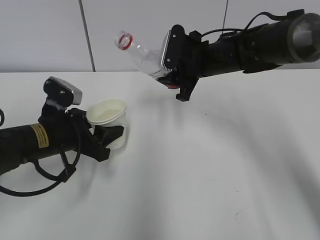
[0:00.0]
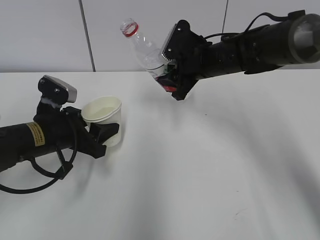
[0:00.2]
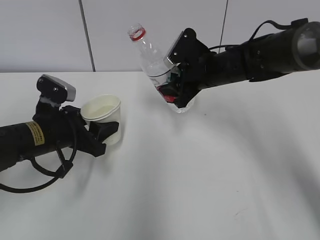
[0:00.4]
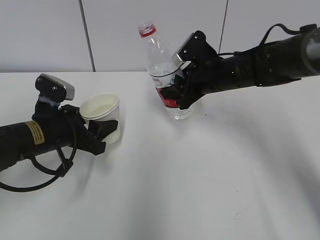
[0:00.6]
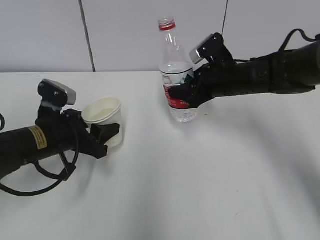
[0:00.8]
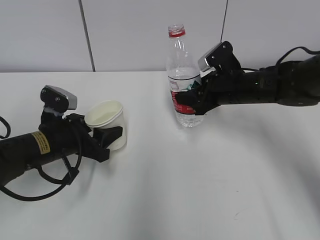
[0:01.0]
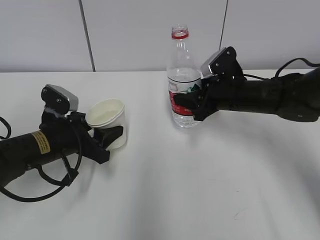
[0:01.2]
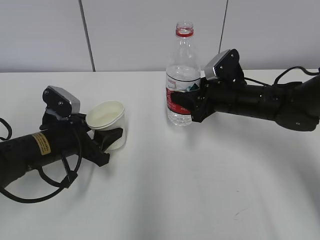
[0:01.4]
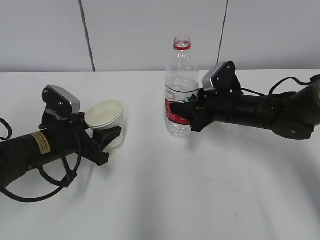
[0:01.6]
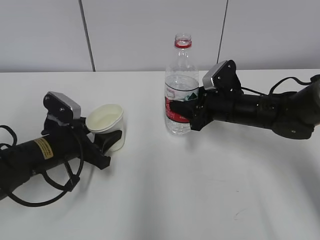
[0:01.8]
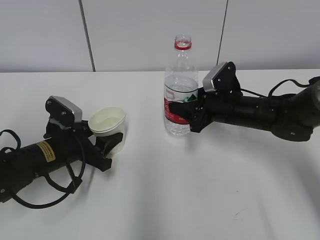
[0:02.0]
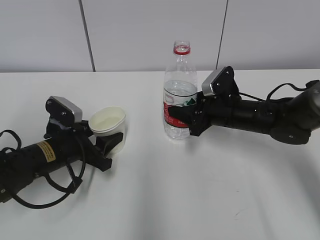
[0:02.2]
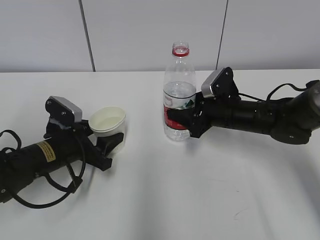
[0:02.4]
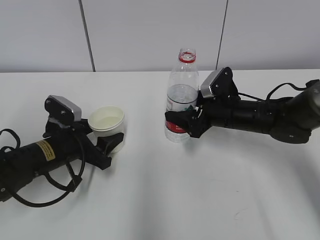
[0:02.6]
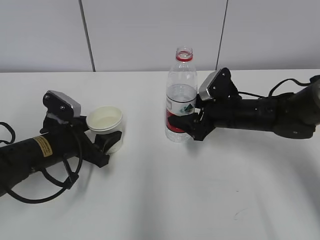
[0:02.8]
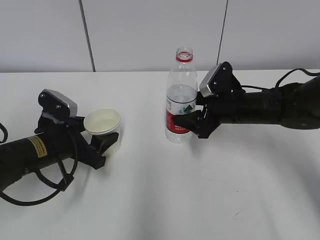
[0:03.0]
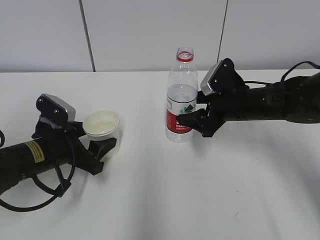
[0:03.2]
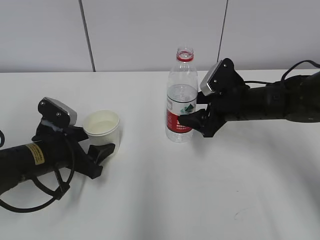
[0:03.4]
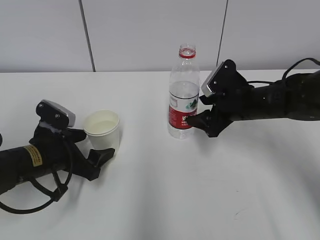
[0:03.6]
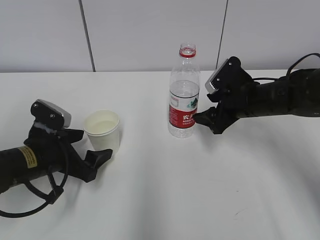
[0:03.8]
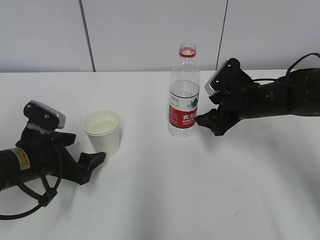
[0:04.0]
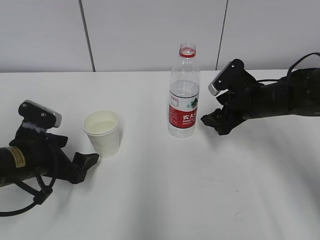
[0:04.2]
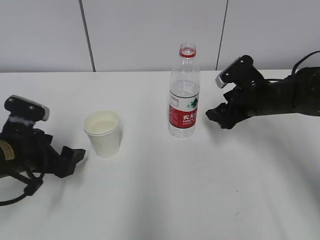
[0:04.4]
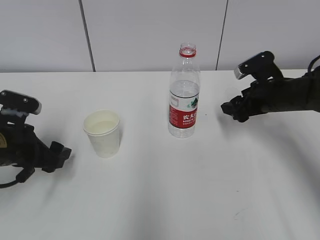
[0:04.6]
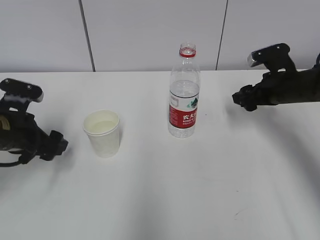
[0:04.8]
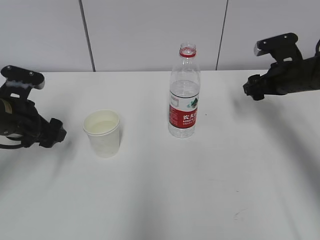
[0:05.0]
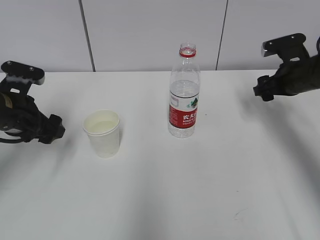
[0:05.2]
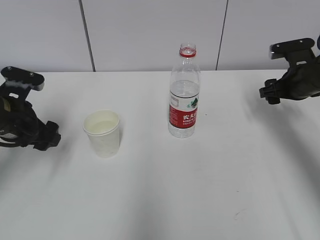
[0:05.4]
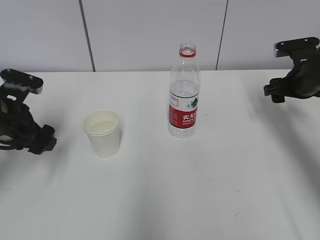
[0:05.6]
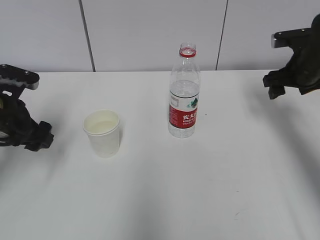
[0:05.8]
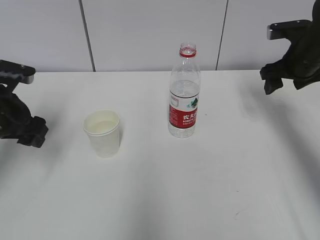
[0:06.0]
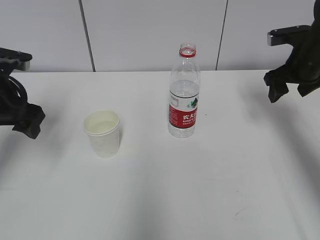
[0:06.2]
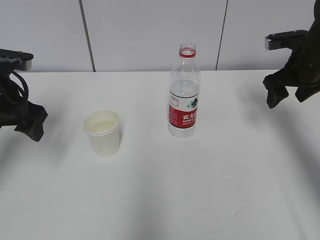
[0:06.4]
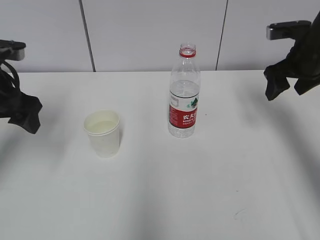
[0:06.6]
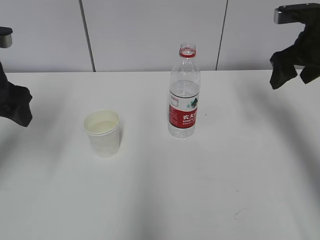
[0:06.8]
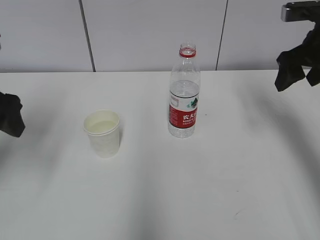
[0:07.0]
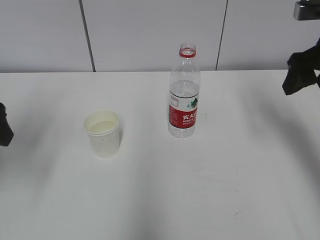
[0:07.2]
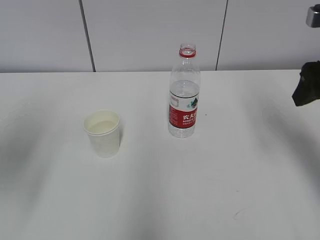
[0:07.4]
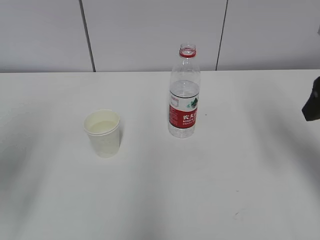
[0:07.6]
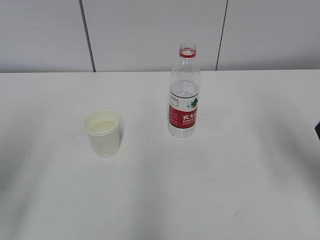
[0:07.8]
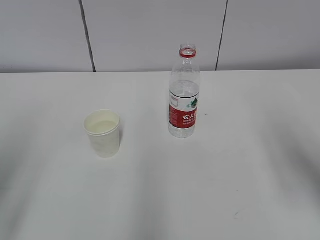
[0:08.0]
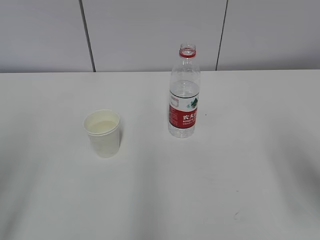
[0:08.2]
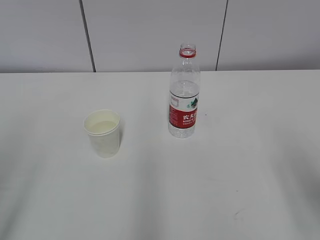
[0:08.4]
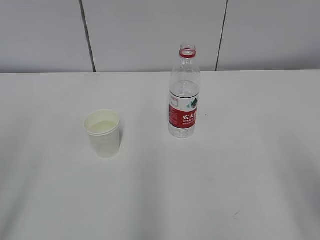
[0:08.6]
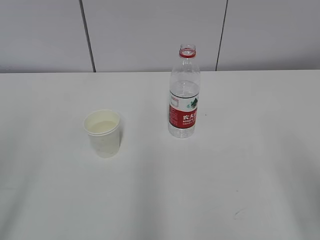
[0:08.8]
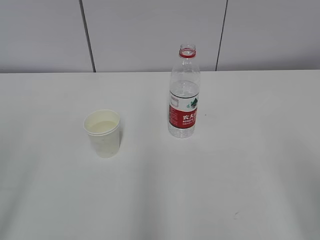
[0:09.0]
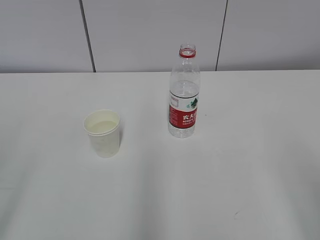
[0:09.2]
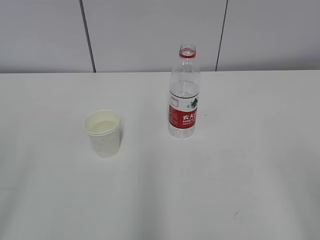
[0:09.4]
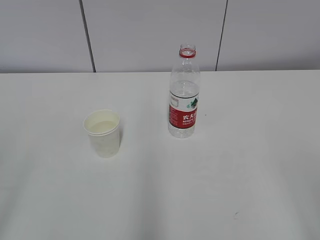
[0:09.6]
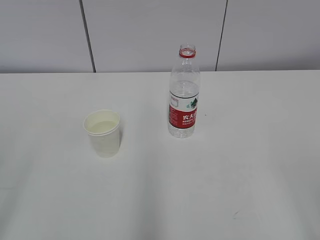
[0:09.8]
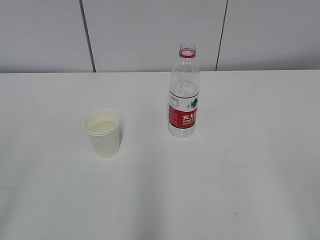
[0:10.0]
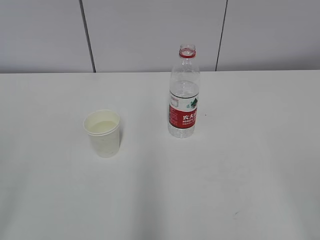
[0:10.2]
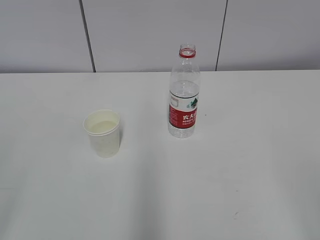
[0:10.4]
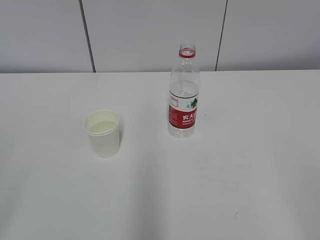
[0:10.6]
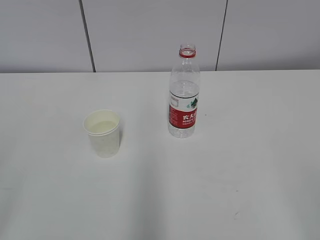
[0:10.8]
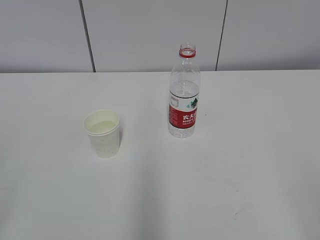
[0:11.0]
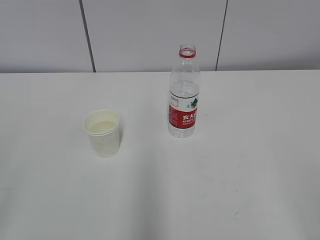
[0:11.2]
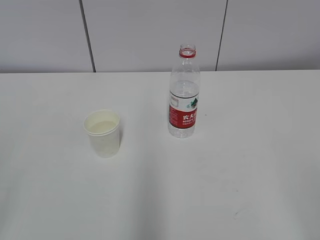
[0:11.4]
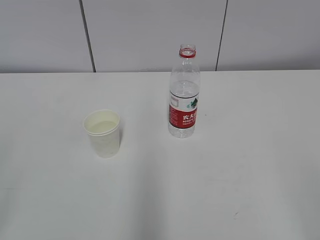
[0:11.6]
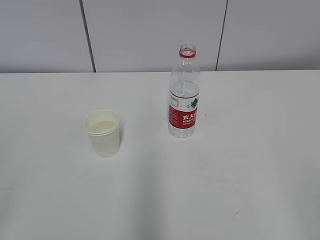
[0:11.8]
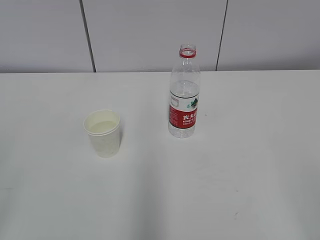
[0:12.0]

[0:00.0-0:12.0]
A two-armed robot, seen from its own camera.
0:00.0 to 0:01.6: The right gripper goes approximately 10 cm downward and to the right.
0:01.6 to 0:03.0: The right gripper opens its fingers.
0:03.0 to 0:04.4: The left gripper moves some 5 cm, and opens.
0:04.4 to 0:06.0: The right gripper shifts approximately 10 cm to the right and upward, while the left gripper travels upward by some 10 cm.
0:06.0 to 0:07.6: The grippers both shift backward and upward by approximately 15 cm.
0:07.6 to 0:09.0: The right gripper goes some 20 cm backward.

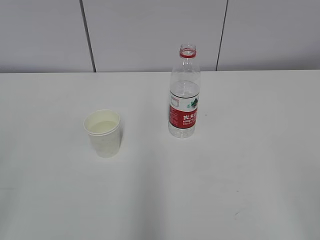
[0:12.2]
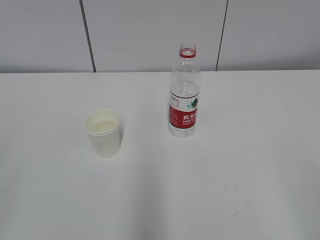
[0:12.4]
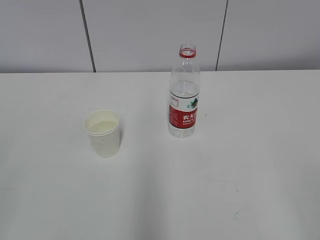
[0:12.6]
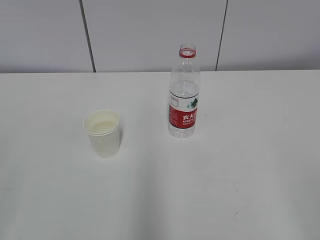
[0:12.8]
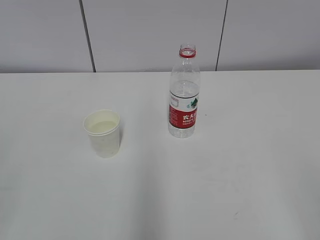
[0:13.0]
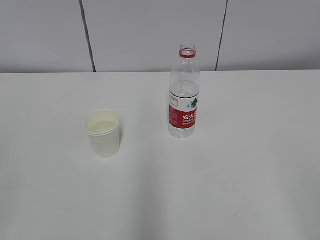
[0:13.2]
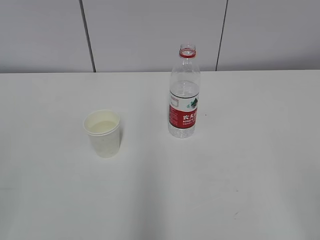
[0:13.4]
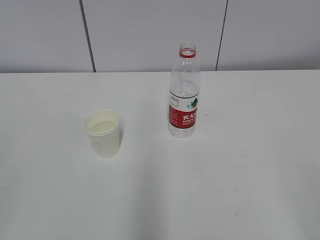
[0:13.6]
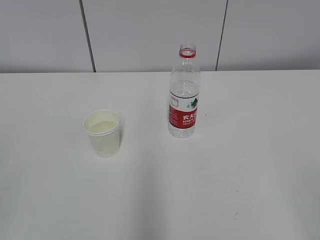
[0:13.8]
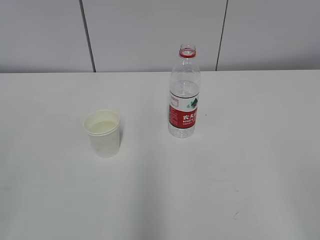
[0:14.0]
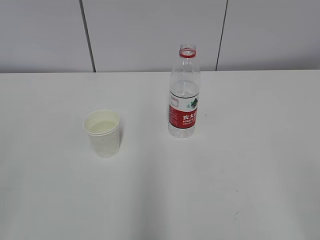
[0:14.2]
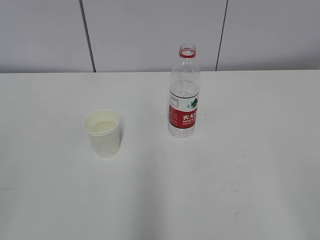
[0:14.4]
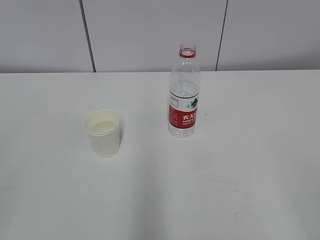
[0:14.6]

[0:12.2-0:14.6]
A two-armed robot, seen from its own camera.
0:13.4 to 0:14.6: Both grippers stay put.

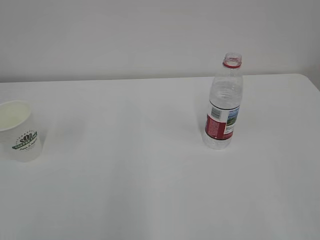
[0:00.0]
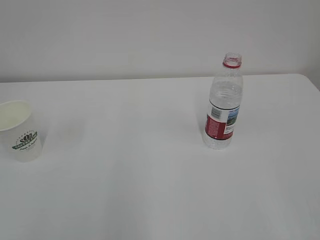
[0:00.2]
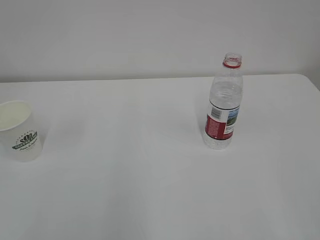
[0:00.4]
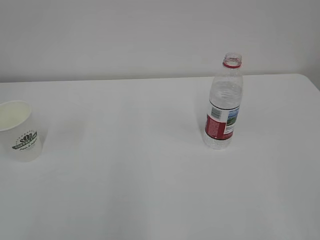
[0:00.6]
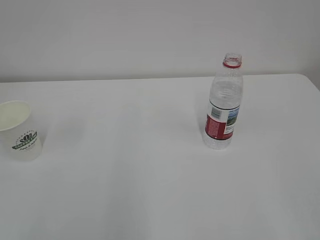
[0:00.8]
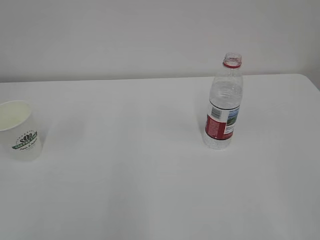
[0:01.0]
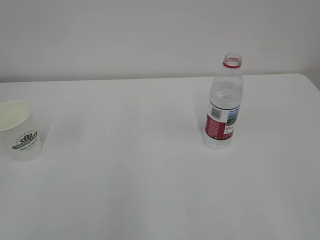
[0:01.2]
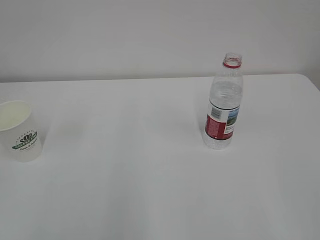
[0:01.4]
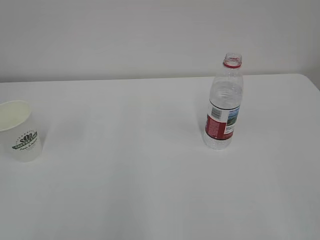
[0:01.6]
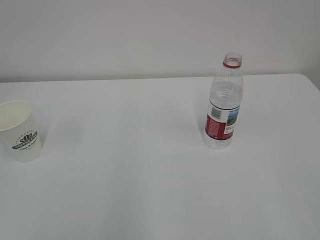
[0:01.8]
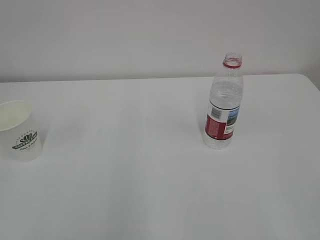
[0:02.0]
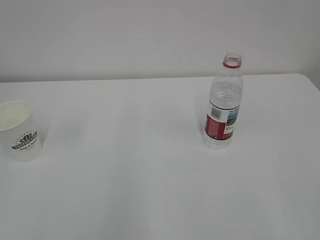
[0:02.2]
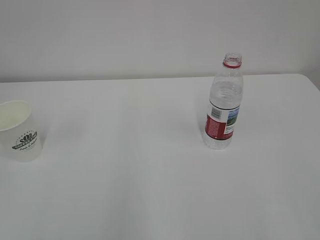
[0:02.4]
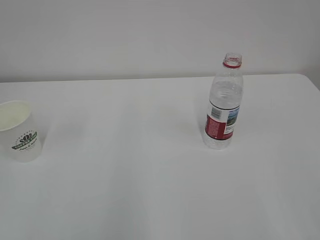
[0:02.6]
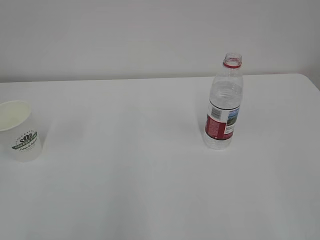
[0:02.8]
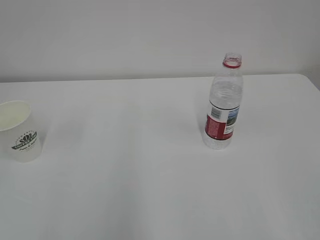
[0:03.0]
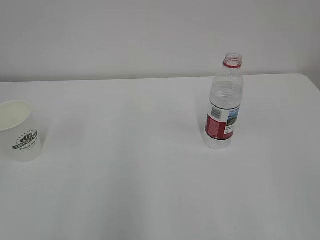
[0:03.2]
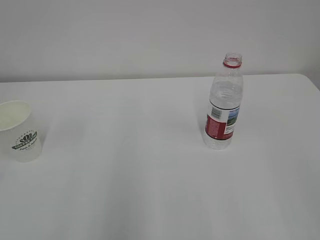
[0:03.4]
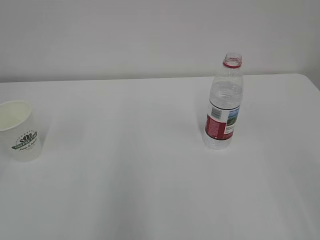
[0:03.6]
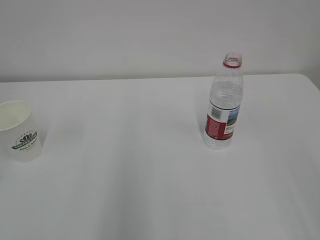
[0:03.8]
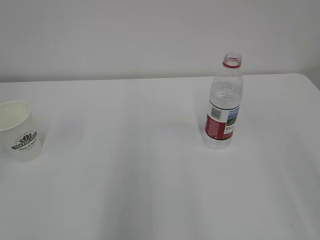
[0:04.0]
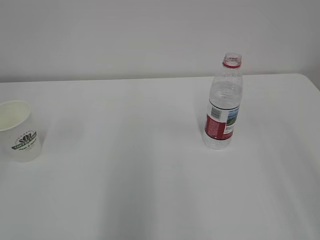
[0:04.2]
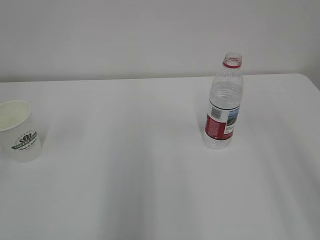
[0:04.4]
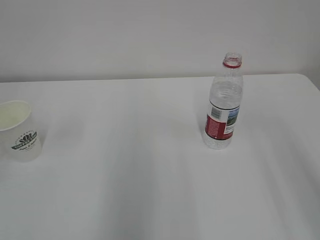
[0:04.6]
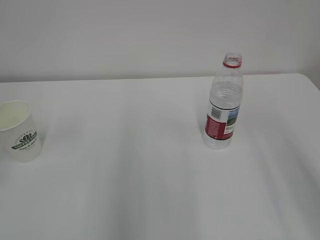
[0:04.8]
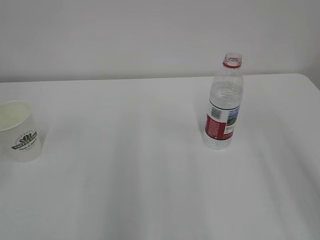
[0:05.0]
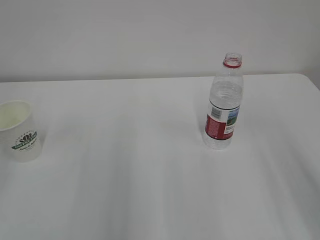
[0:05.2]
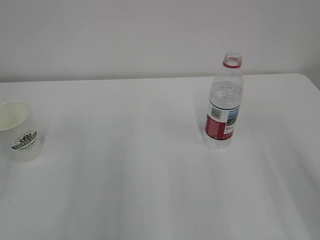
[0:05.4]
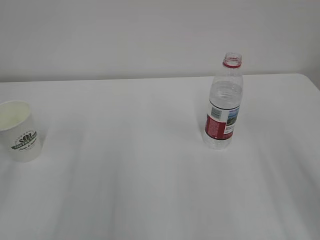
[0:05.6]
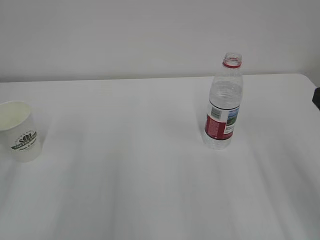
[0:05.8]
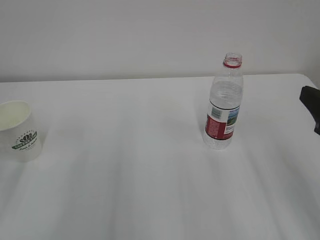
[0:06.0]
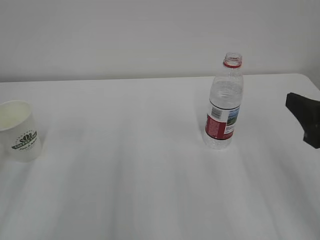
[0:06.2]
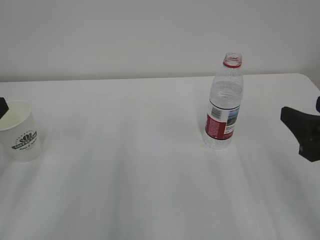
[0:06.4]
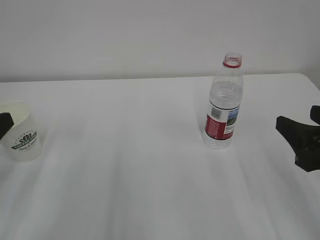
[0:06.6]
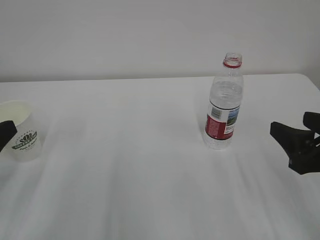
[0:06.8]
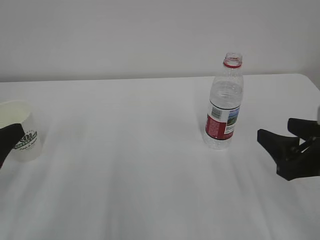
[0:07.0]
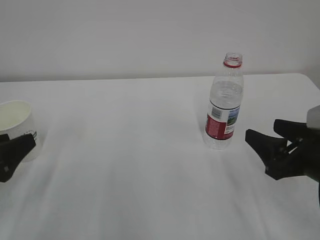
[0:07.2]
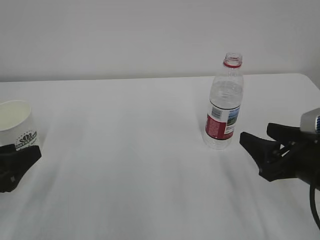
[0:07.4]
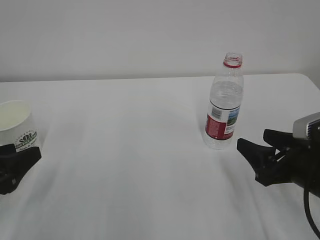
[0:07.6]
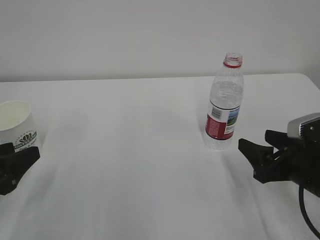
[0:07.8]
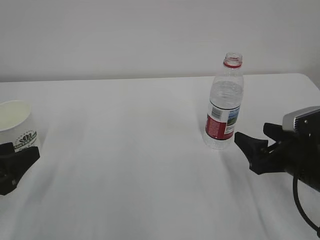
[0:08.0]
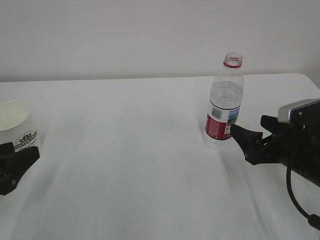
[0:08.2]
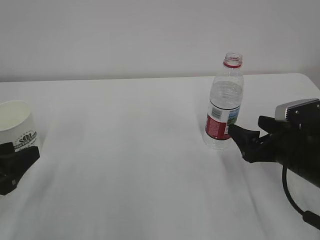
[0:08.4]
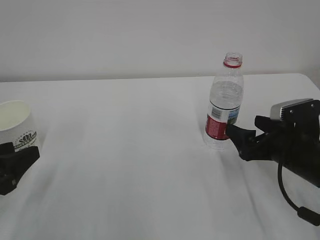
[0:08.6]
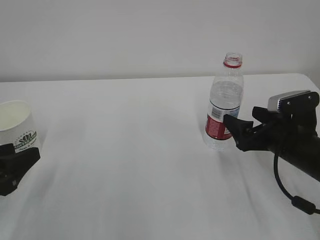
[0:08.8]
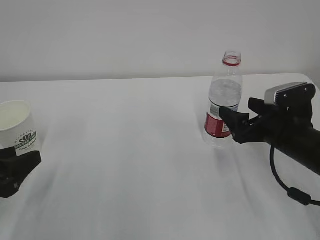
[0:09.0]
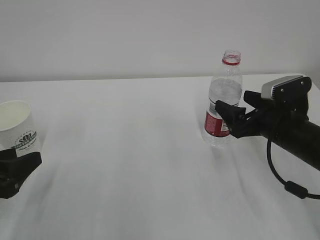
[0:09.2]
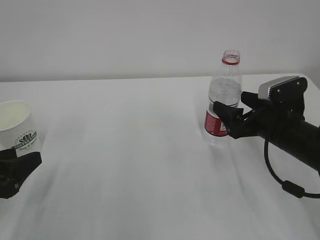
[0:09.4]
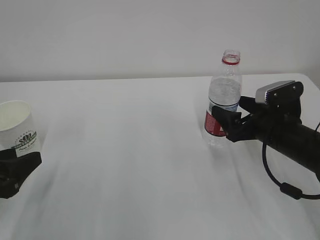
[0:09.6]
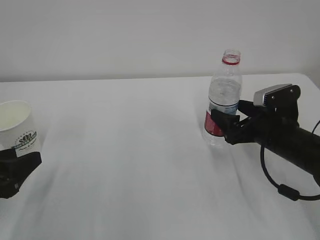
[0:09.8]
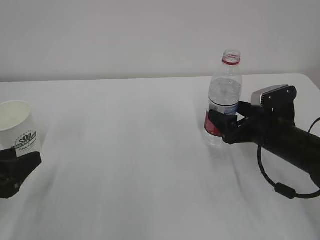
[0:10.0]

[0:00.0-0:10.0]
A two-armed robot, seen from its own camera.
0:05.8 to 0:07.2: Both grippers move downward, some 10 cm.
0:07.2 to 0:08.6: The right gripper shifts some 5 cm forward, and opens.
0:08.6 to 0:10.0: The grippers stay close to where they were, moving slightly.
